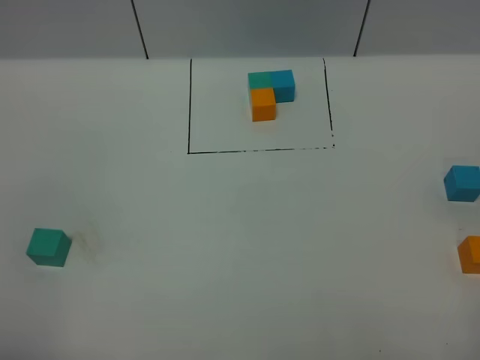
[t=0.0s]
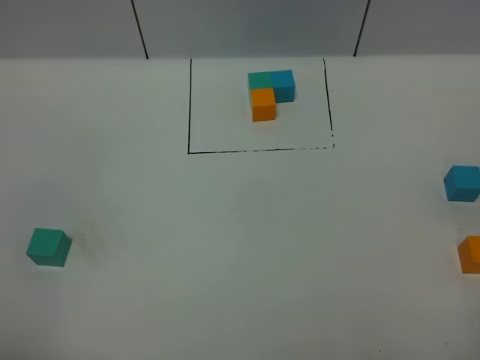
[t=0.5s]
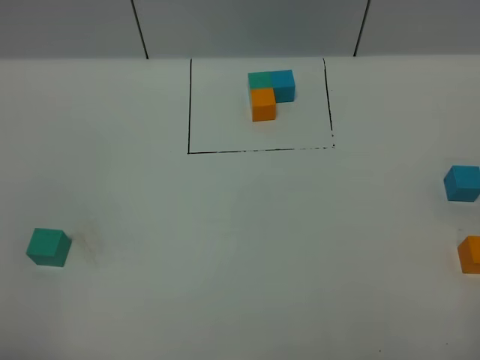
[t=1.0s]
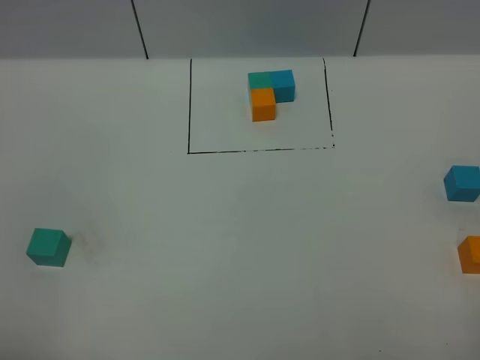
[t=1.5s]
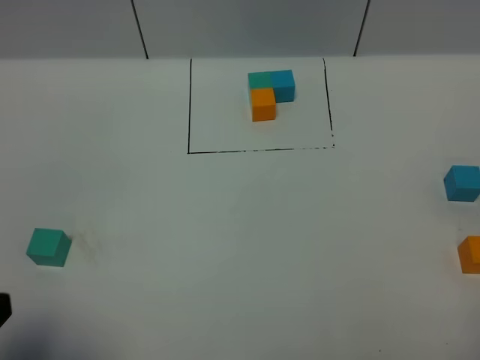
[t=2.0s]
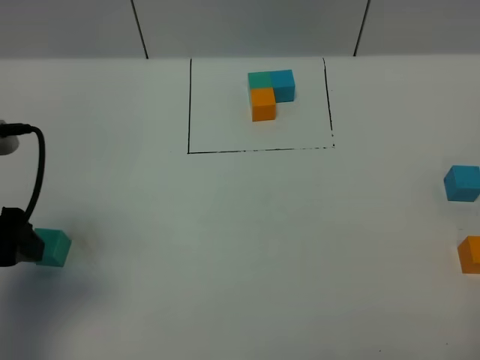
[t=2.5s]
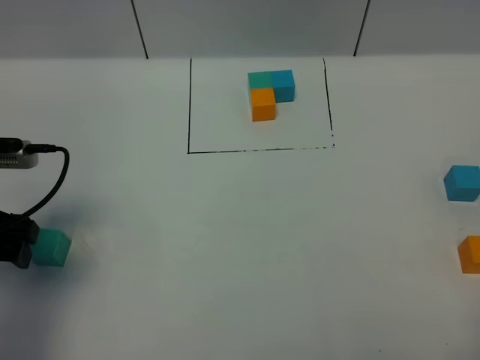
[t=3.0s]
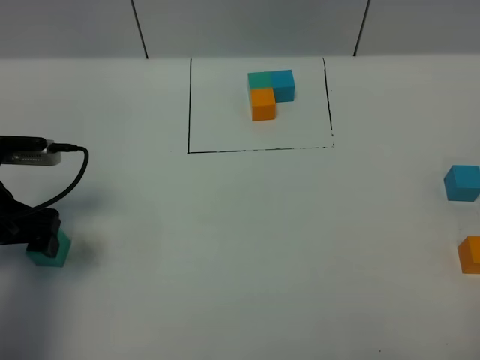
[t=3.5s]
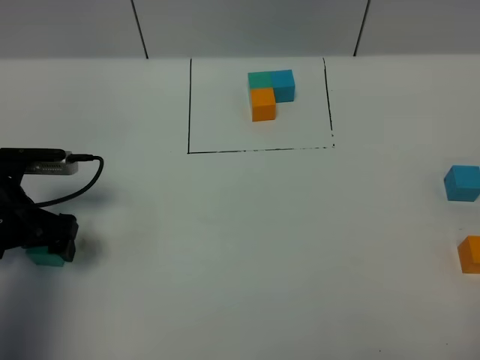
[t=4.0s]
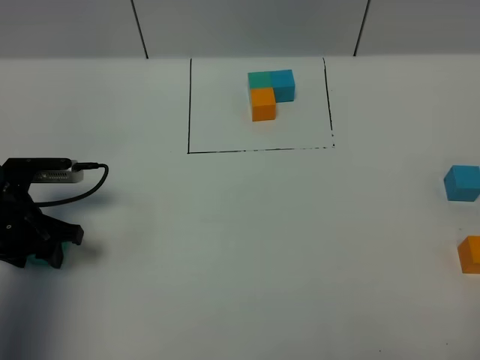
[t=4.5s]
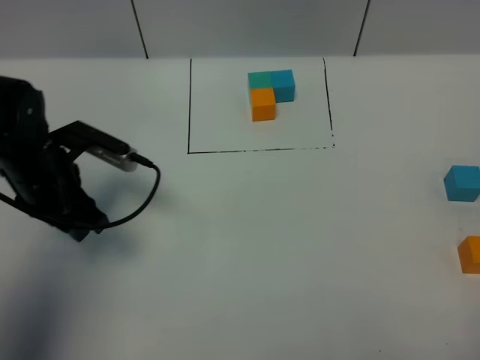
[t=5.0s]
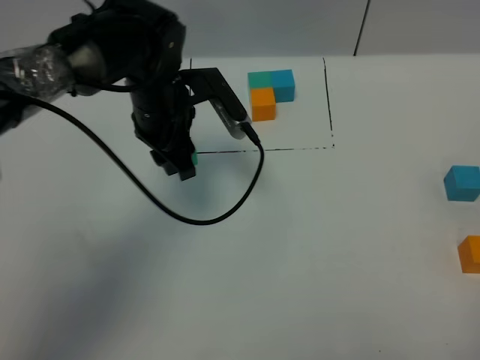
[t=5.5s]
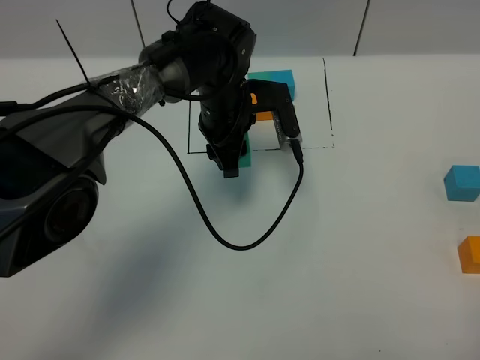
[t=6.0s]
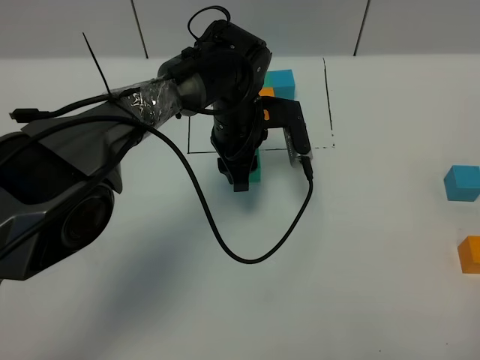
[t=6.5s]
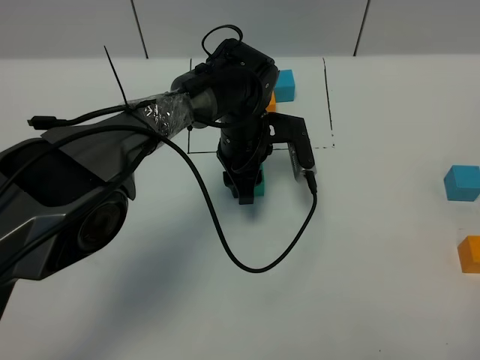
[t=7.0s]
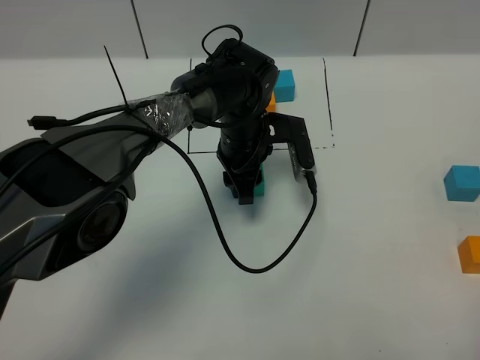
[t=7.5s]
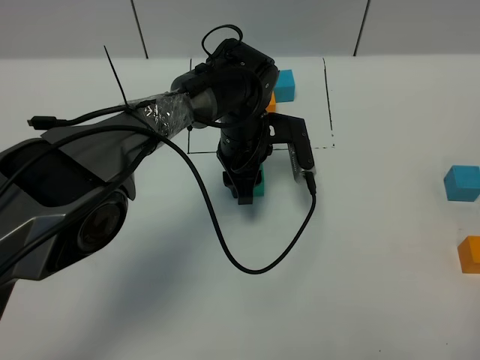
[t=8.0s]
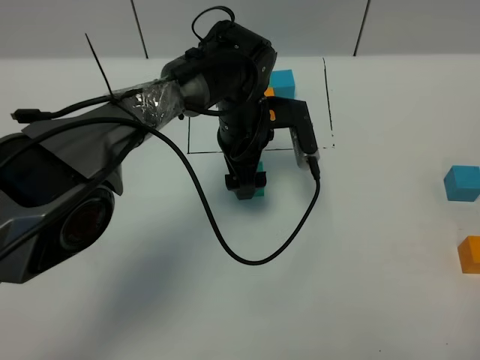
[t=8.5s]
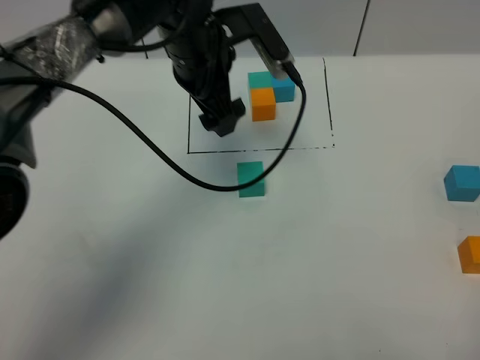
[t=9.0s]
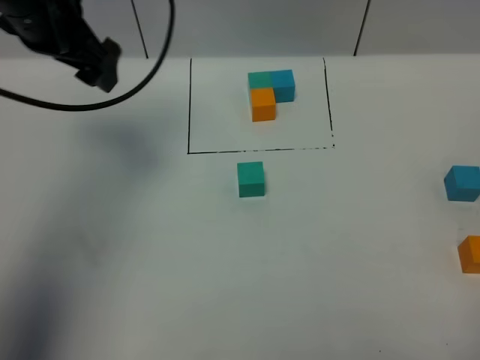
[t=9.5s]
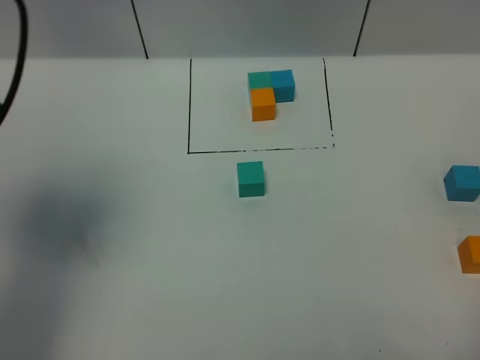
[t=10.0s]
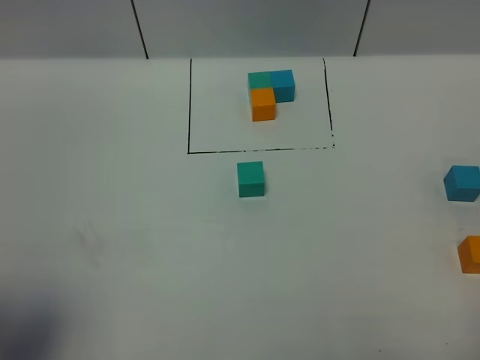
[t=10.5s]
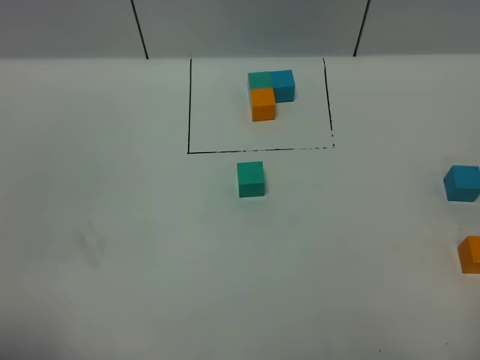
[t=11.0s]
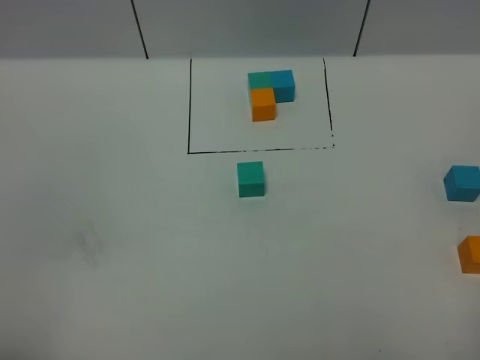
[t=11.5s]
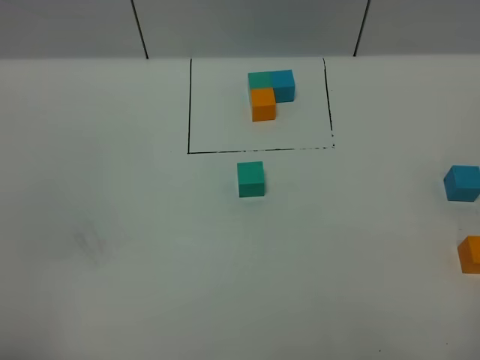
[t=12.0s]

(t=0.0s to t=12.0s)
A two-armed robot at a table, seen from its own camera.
Task of the whole recording: According to the building block template in front, assemble the scattered blocks together.
Step, t=0.0s - t=8.0s: Put the green build block in the center of the table.
t=0.0s - t=2.0s: The left gripper goes roughly 5 cm forward.
t=2.0s - t=4.0s: The left gripper goes roughly 30 cm forward and downward.
t=4.0s - t=6.0s: The left gripper heads to the right and forward, covering approximately 30 cm, and closes.
t=6.0s - t=8.0s: The left gripper shifts by about 5 cm.
t=8.0s - t=10.0s: The left gripper travels to the left, upward and backward by about 40 cm, and opens its fingers.
t=10.0s - t=12.0s: The left gripper is displaced backward and downward by about 25 cm.

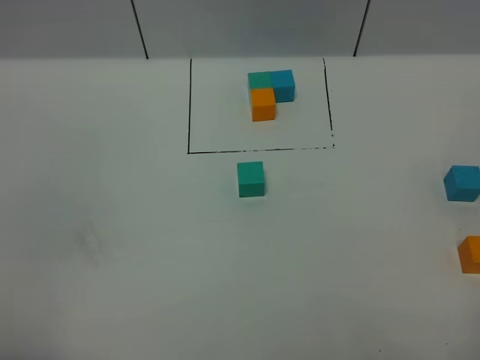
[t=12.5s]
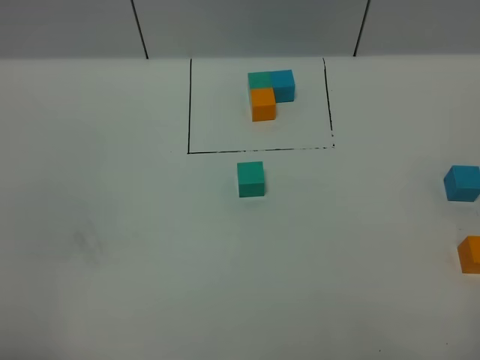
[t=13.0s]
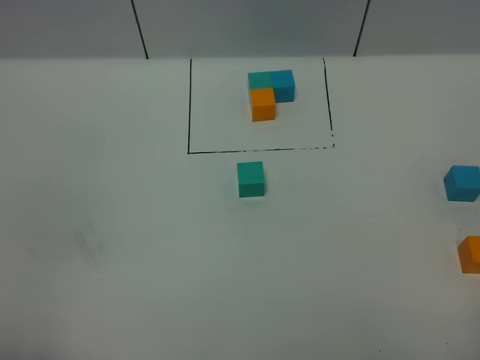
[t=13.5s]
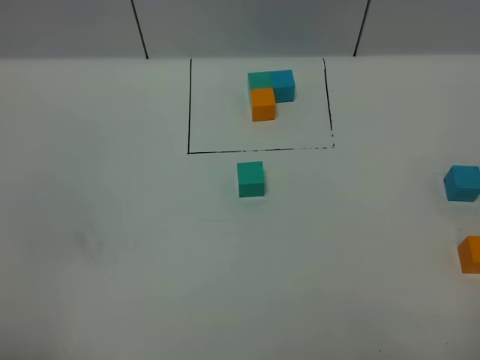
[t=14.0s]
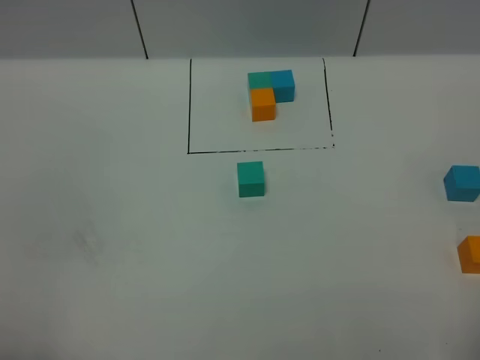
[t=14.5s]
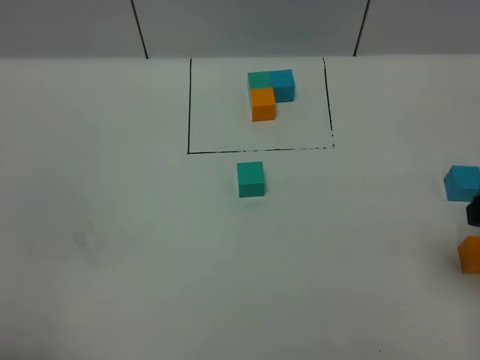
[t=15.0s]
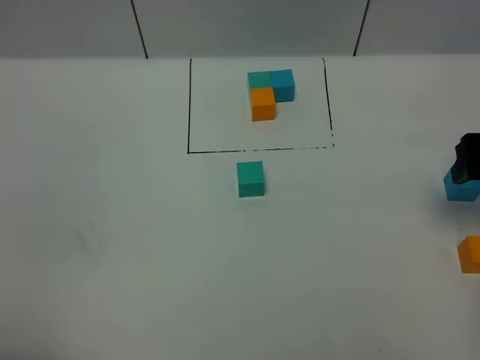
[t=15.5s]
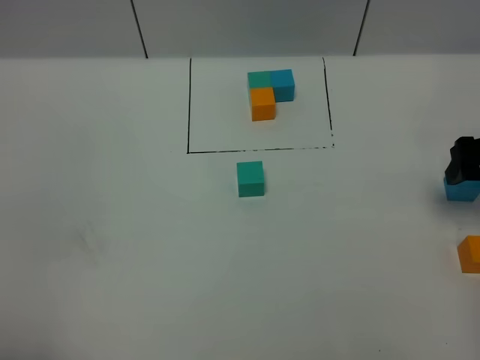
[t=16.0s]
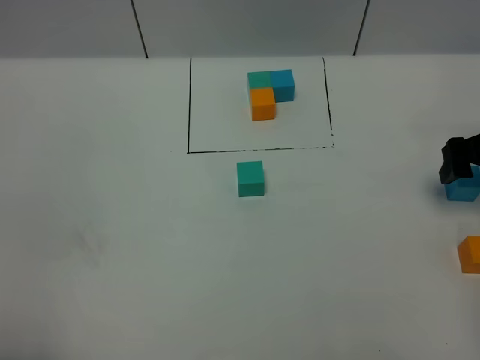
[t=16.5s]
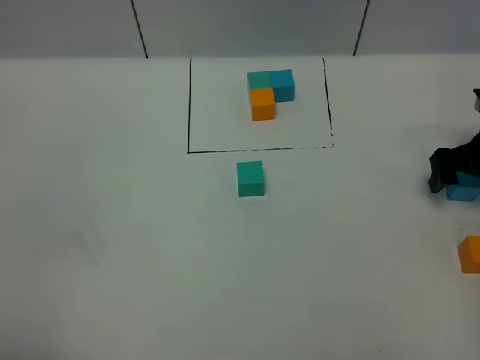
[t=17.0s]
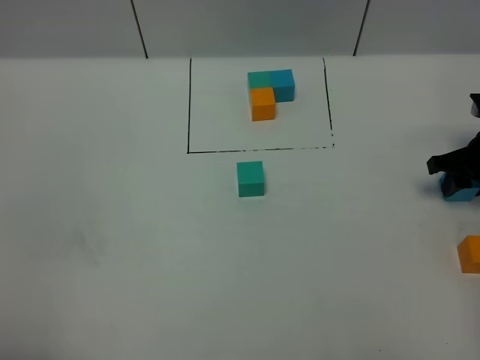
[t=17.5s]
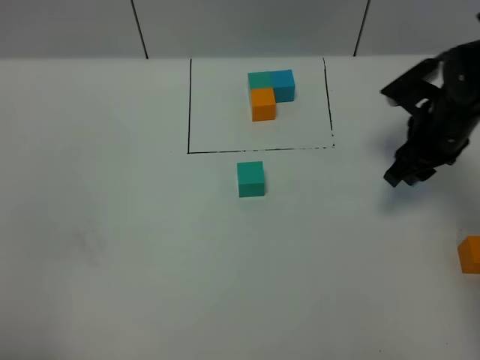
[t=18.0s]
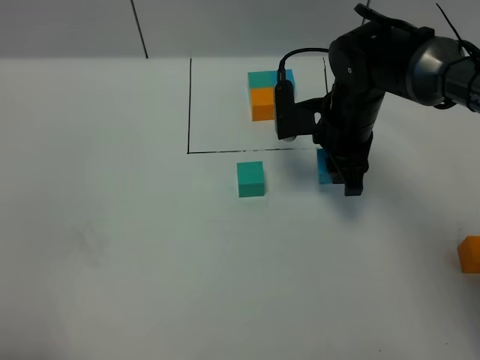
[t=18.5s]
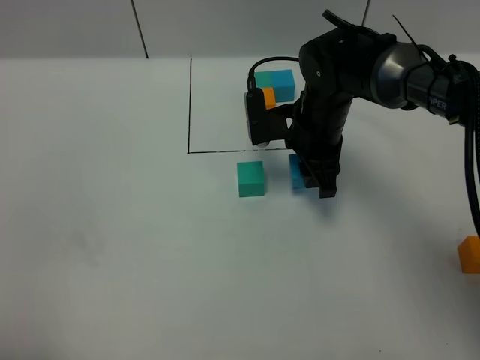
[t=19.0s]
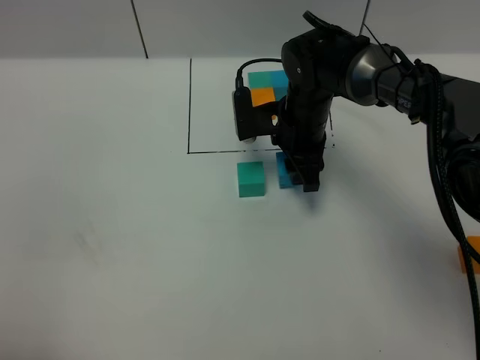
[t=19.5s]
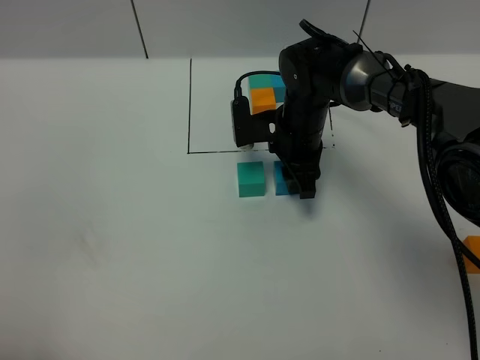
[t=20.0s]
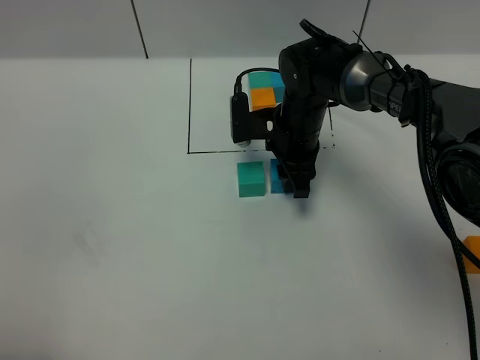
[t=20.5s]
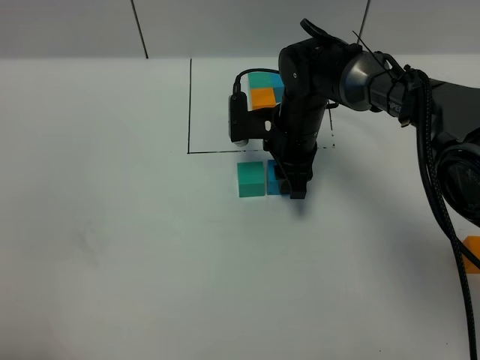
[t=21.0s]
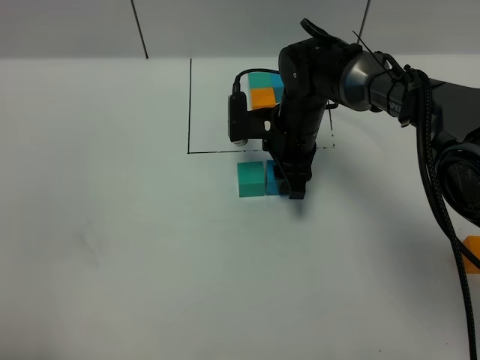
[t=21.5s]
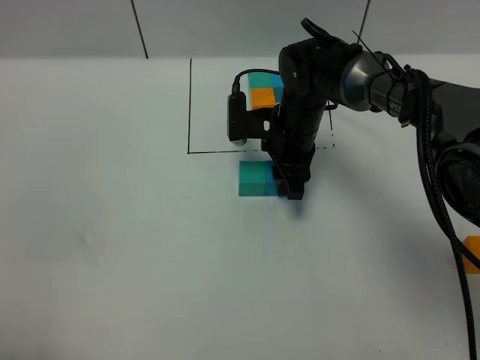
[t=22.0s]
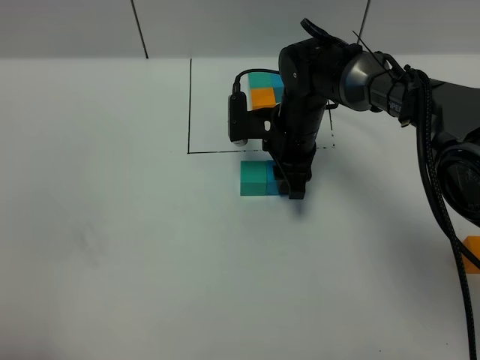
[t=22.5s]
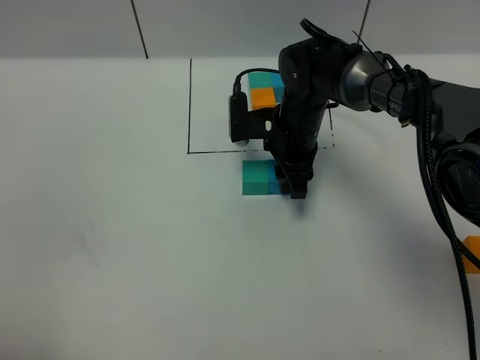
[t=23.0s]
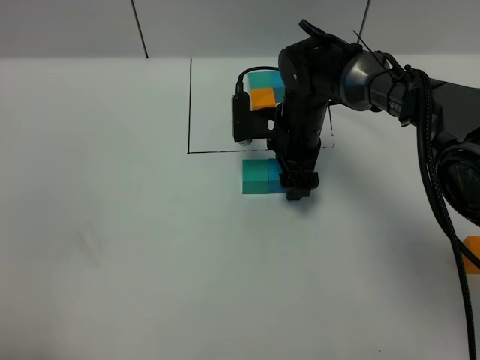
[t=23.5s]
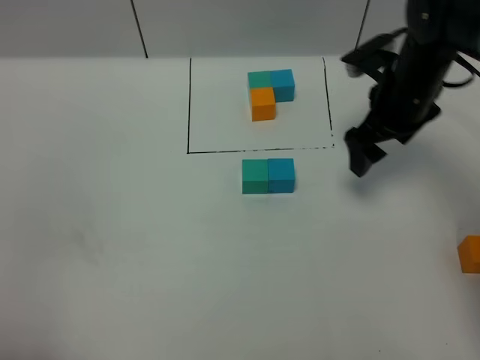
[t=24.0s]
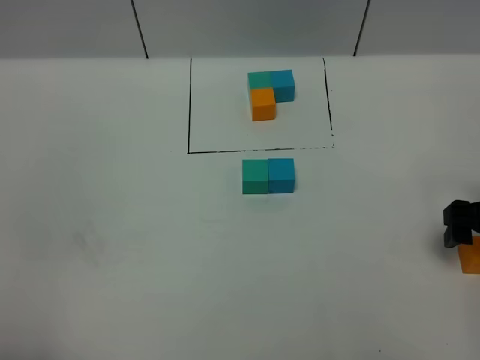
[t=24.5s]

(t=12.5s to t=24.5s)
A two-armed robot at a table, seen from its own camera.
Task of the whole recording: According to the building block template in front, assemble the scattered blocks together.
Step, t=12.5s - t=23.0s: Put the blue build block on the right of the green build block.
t=14.5s - t=16.5s: The right gripper moves forward, approximately 30 cm.
t=16.5s - t=18.5s: The right gripper moves to the left, some 20 cm, and closes its fingers.
t=18.5s - t=20.5s: The right gripper goes about 5 cm to the left.
t=20.5s - t=22.5s: Both grippers stay about where they are.
t=22.5s - t=24.5s: The right gripper heads to the right and backward, covering approximately 30 cm, and opens up.

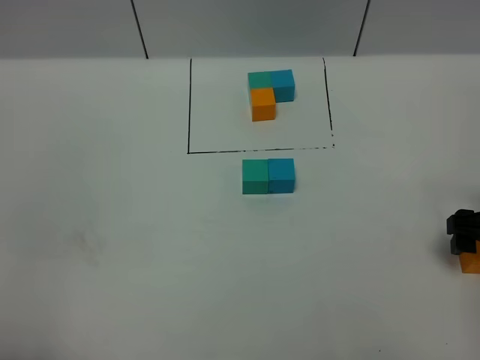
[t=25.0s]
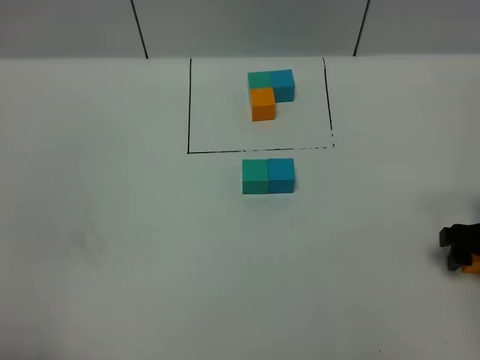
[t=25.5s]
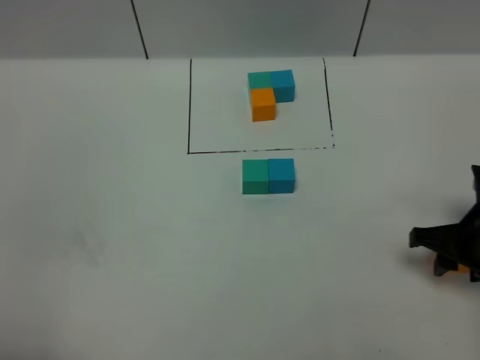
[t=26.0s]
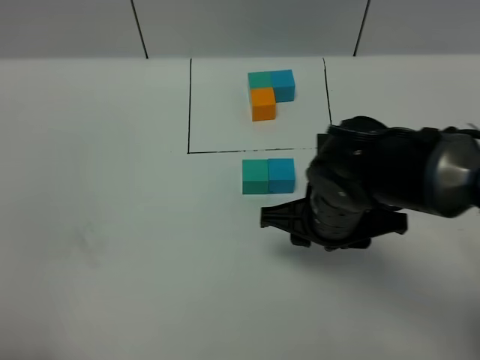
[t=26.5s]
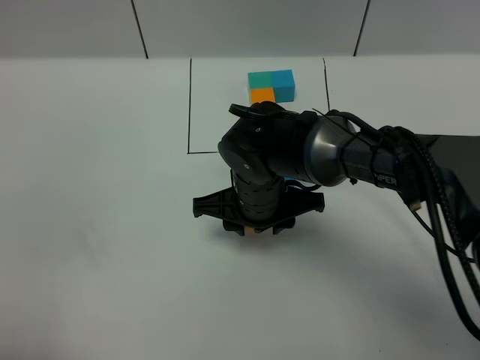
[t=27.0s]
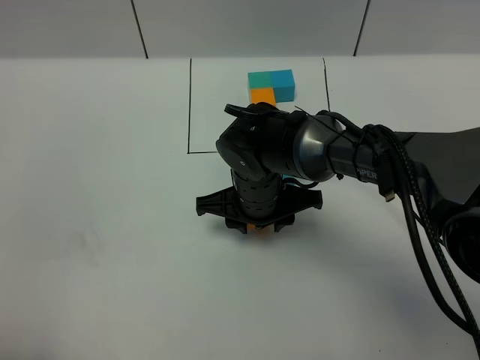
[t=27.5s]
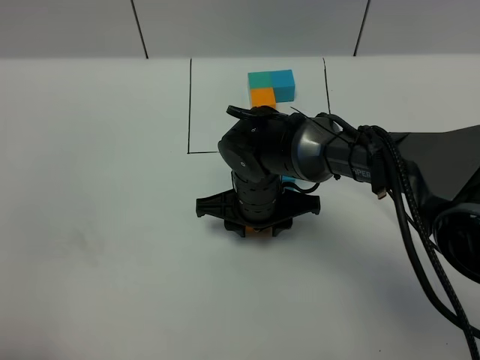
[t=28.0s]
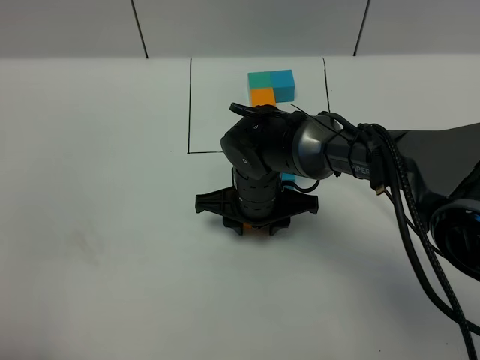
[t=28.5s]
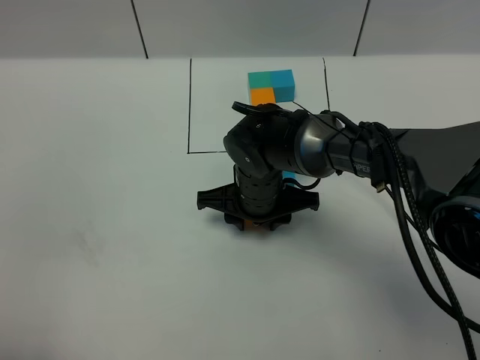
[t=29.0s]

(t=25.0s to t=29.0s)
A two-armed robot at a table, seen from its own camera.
Task of the whole recording: According to the building block template in front, assemble the scattered blocks together.
t=25.0s - t=27.0s: The right gripper moves to the left, approximately 30 cm, and closes up.
t=27.0s - t=29.0s: The grippers stay close to where they were, moving slightly.
